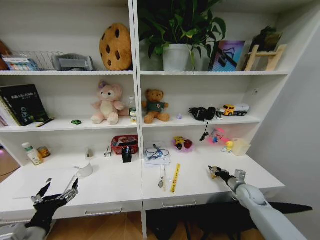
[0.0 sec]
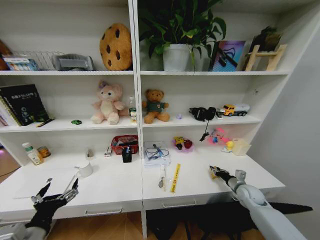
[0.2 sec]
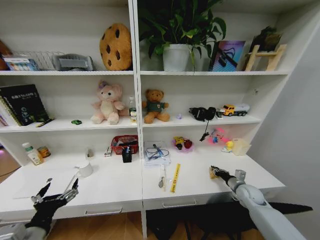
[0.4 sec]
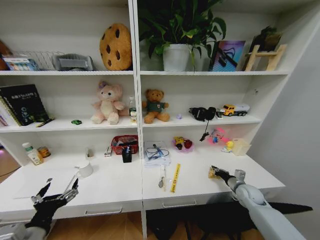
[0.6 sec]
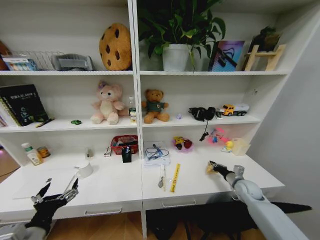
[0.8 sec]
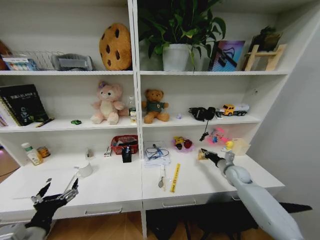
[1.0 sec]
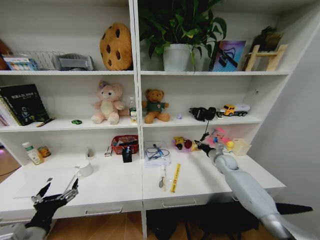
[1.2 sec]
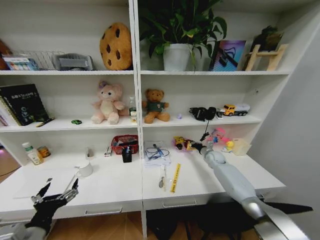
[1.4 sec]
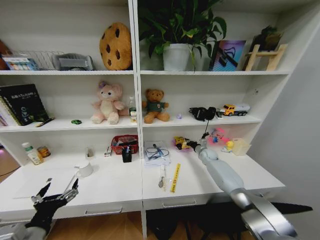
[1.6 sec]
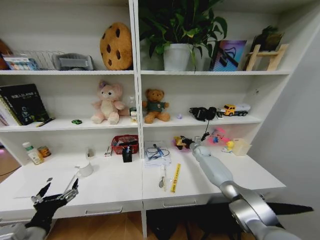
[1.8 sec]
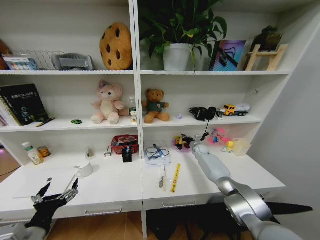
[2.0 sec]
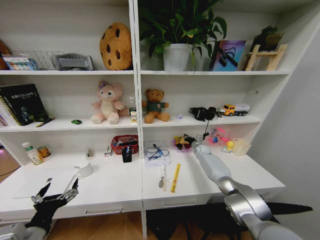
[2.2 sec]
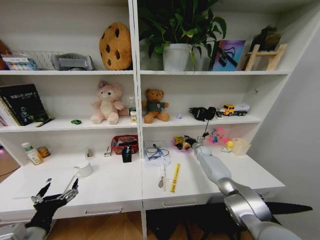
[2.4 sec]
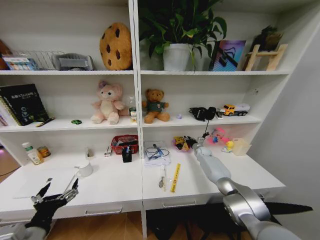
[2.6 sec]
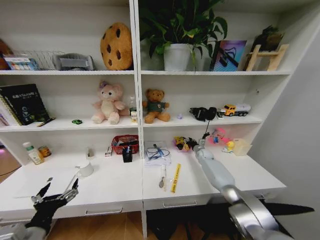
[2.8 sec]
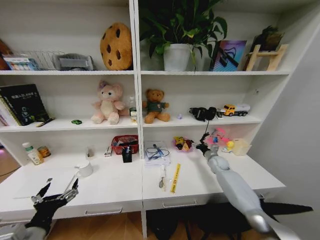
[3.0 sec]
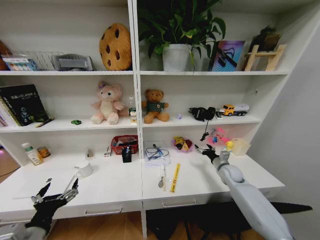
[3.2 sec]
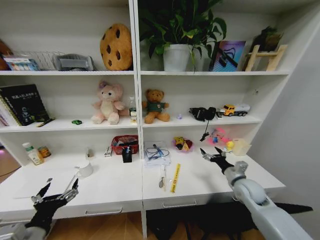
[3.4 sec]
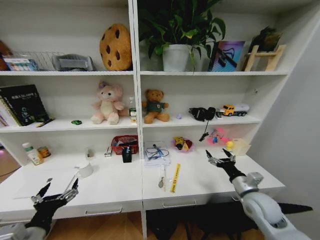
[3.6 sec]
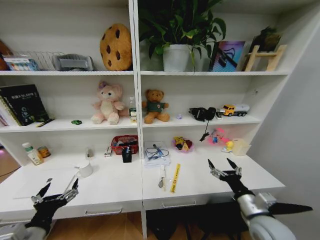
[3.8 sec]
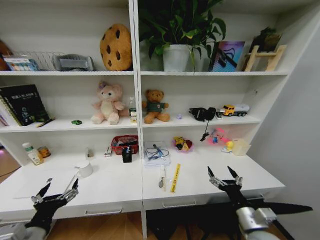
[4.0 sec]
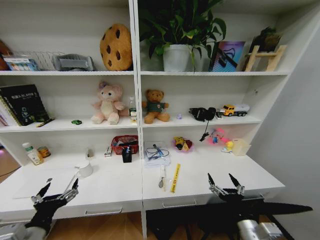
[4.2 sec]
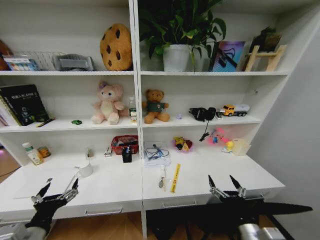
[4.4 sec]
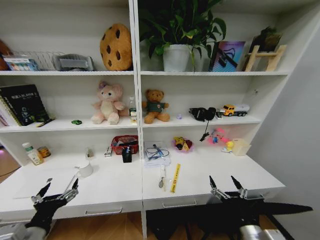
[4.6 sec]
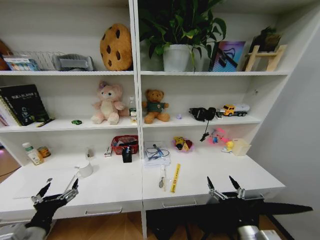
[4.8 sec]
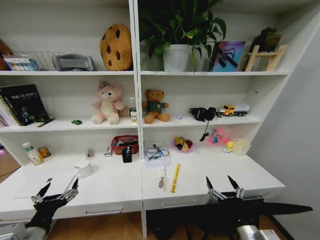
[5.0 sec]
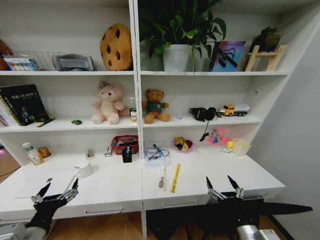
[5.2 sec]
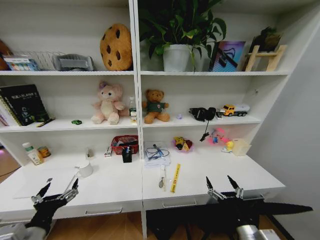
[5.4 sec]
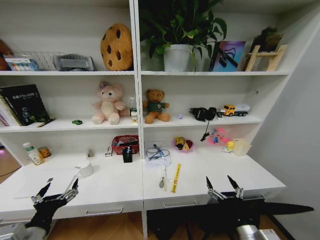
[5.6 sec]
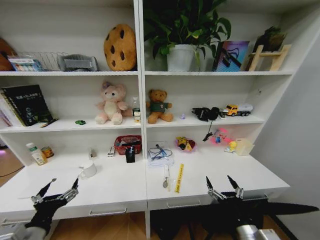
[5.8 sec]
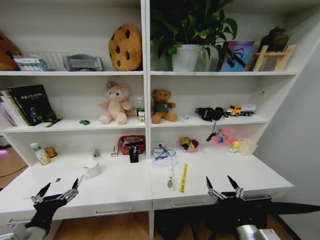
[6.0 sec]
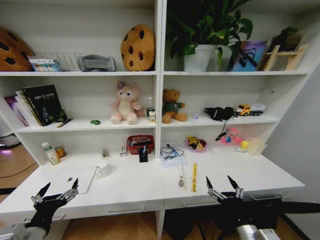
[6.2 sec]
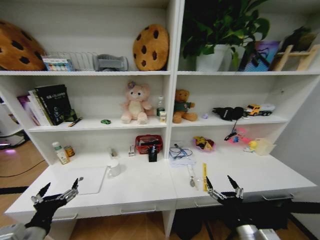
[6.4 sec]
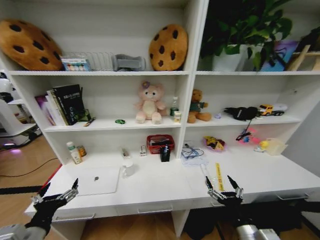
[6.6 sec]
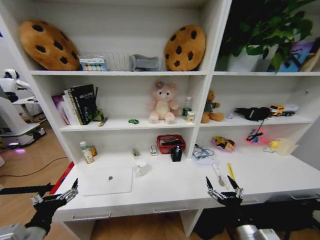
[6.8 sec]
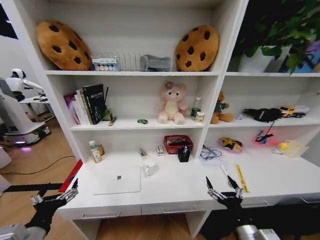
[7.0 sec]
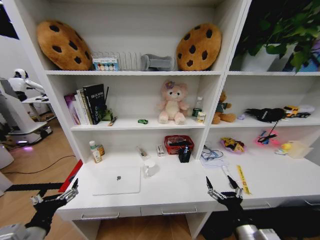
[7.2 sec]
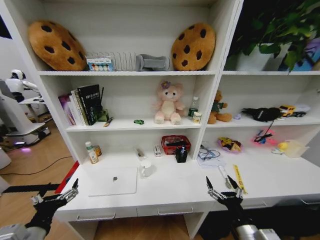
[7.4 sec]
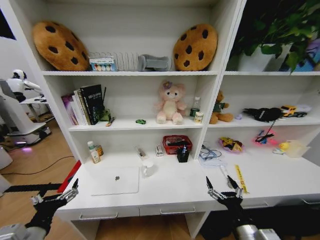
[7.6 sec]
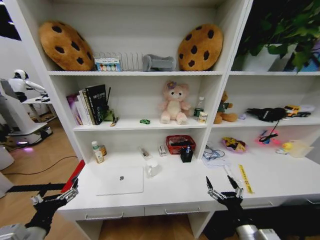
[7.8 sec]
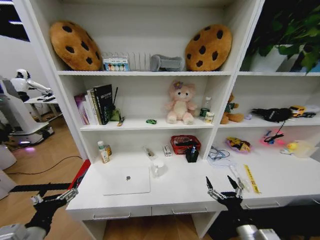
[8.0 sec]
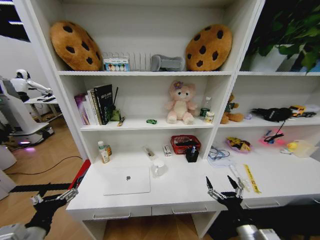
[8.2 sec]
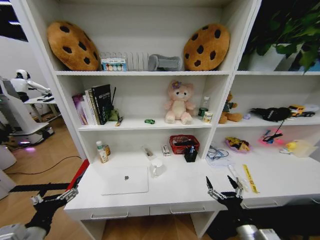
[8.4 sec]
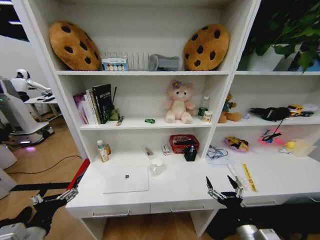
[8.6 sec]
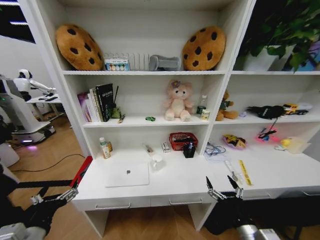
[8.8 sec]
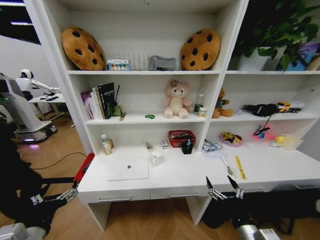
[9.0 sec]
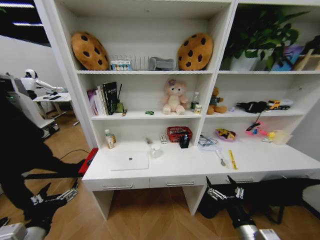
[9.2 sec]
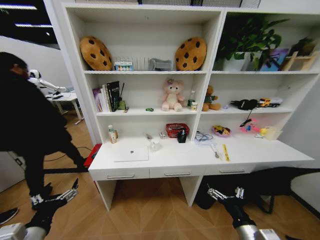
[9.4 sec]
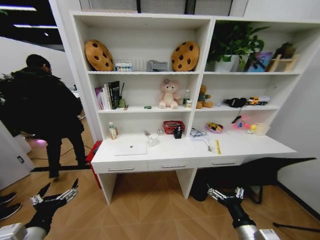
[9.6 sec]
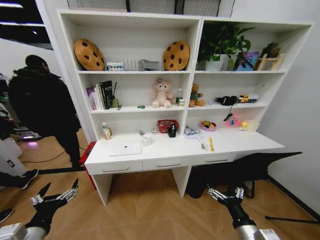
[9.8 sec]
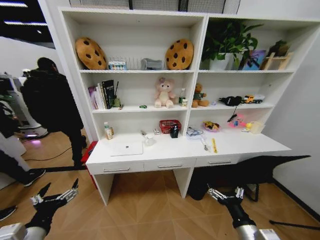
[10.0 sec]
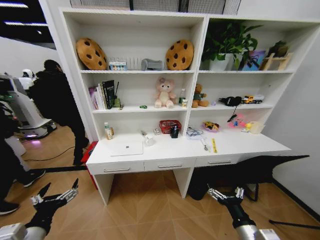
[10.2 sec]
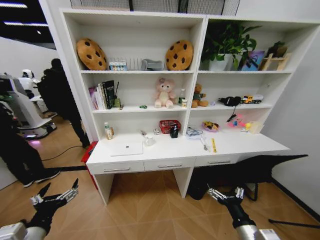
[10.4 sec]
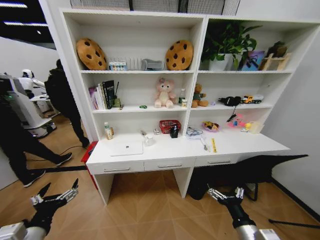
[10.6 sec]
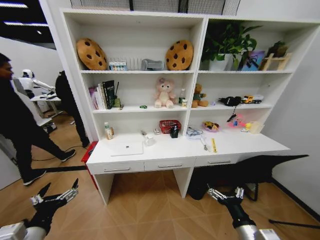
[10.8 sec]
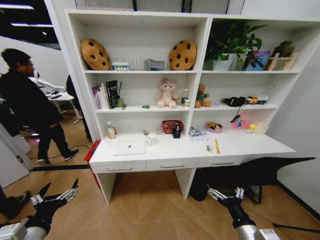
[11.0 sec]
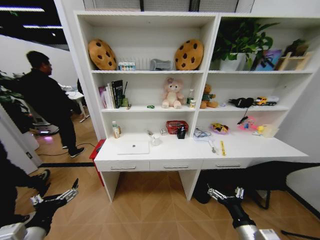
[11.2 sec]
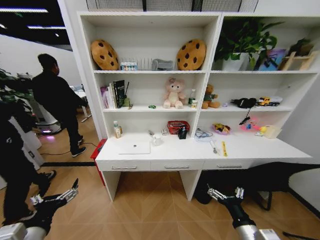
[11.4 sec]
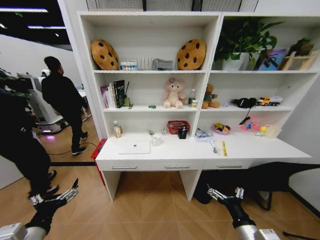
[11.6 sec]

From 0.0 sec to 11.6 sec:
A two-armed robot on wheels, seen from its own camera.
Task of the whole recording: Organize the objects on the table.
From 0.0 sec to 1.4 sec: The right gripper shifts about 20 cm forward and to the left, and closes up.
From 1.4 sec to 2.8 sec: The right gripper ends up some 5 cm from where it was, and opens its fingers.
From 2.8 sec to 4.4 sec: The right gripper moves backward, about 50 cm, and opens its fingers.
From 4.4 sec to 5.8 sec: The two grippers keep their place.
